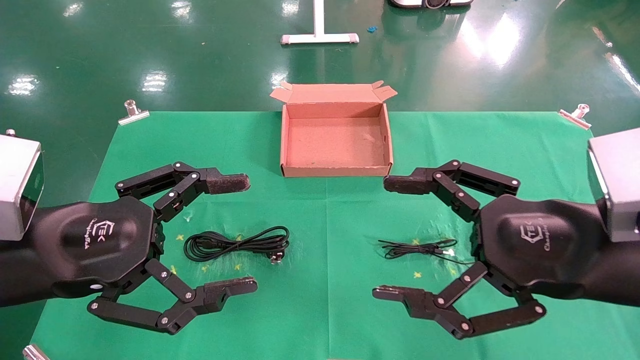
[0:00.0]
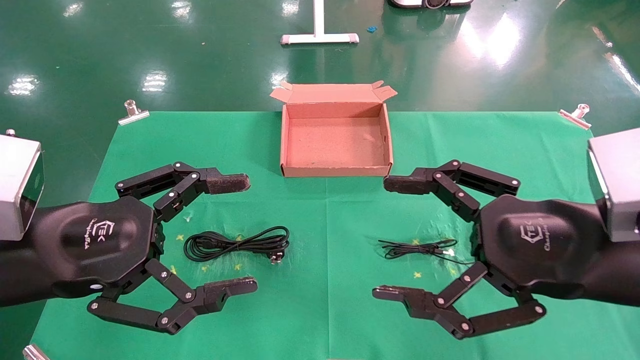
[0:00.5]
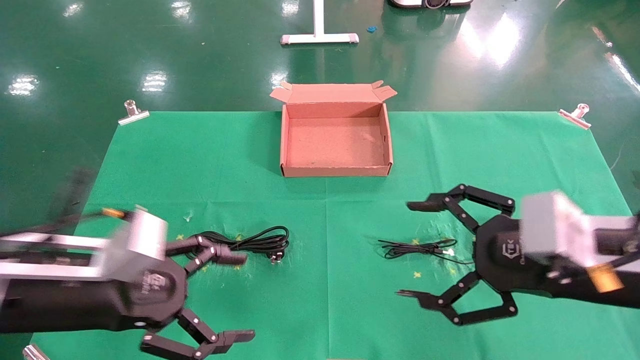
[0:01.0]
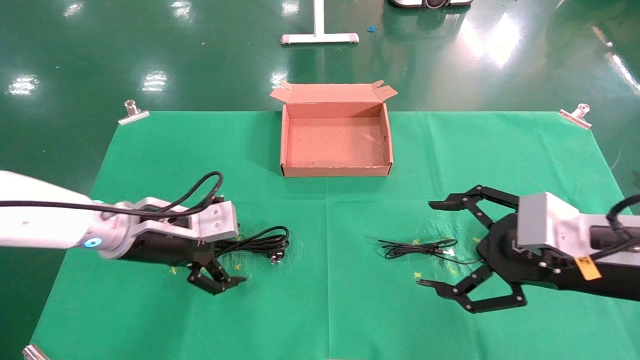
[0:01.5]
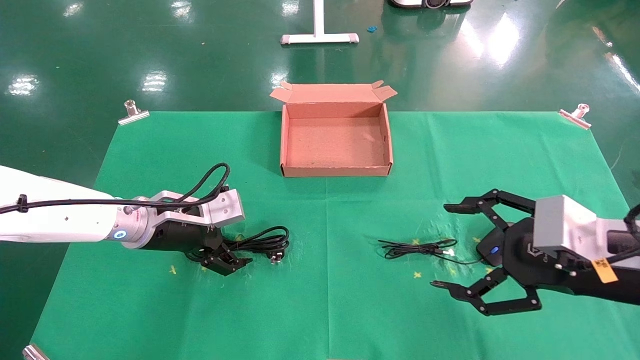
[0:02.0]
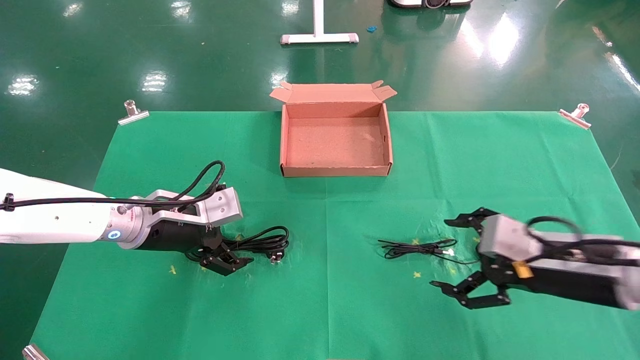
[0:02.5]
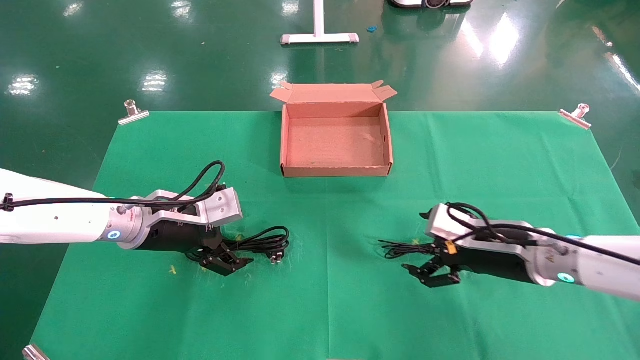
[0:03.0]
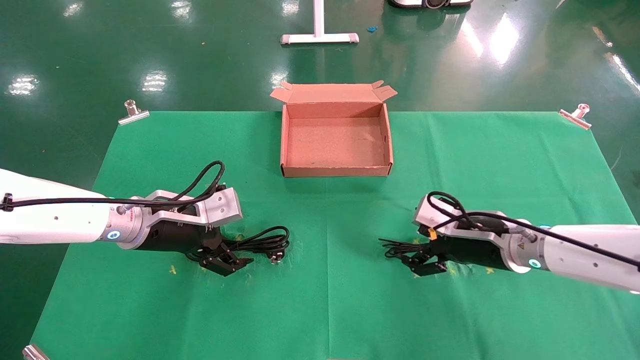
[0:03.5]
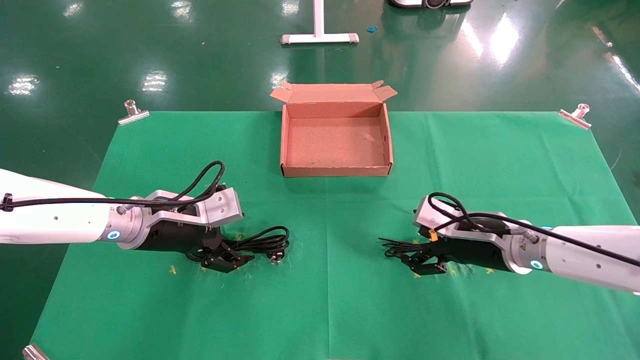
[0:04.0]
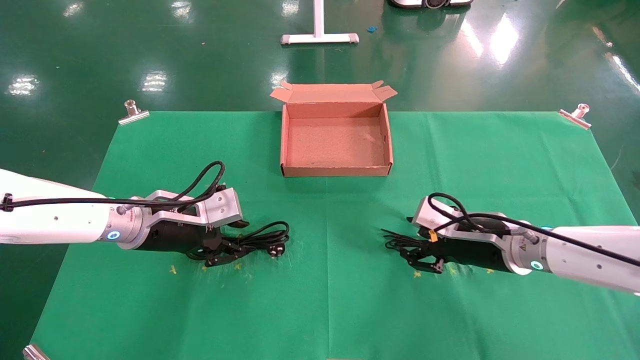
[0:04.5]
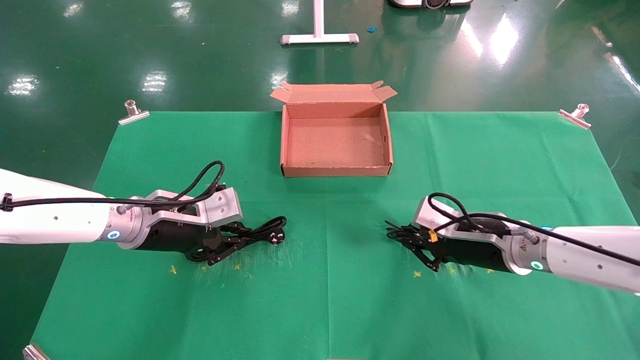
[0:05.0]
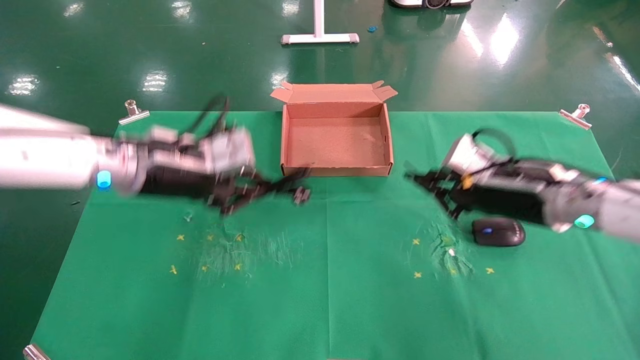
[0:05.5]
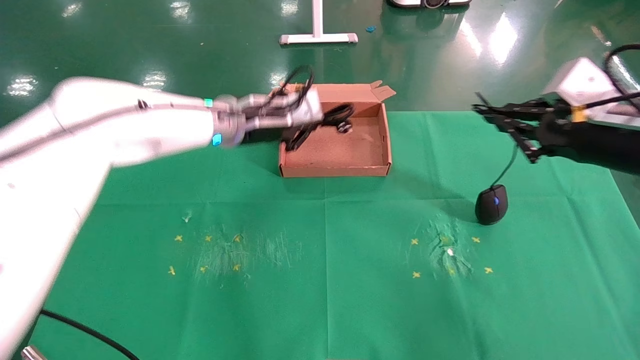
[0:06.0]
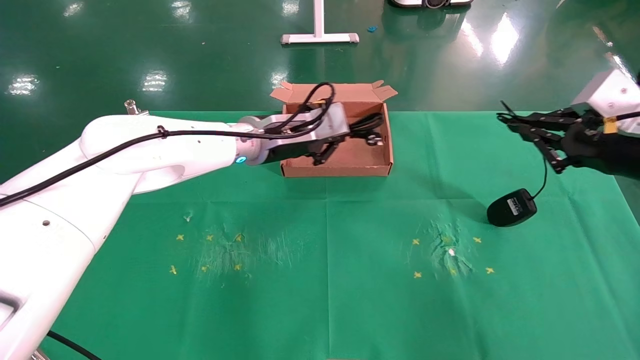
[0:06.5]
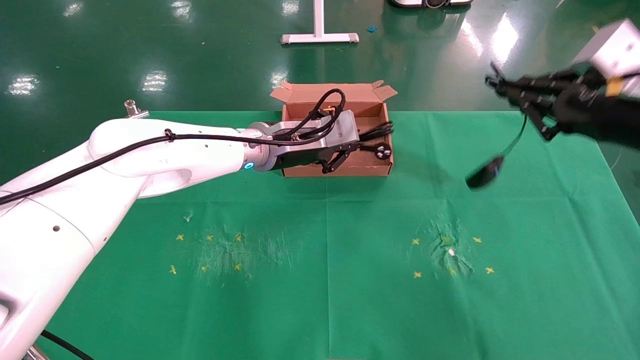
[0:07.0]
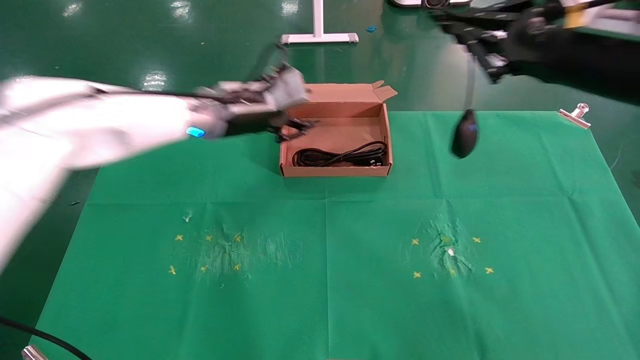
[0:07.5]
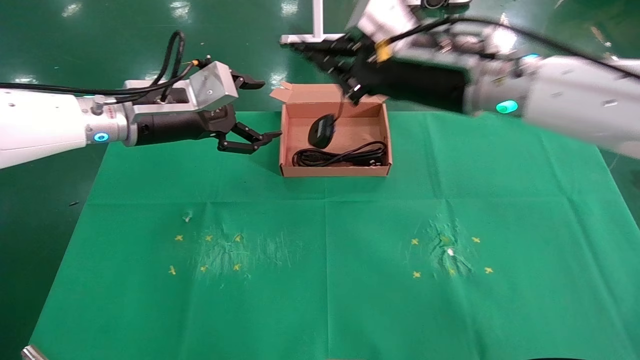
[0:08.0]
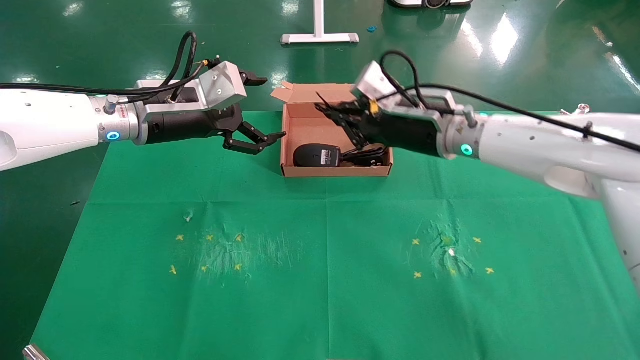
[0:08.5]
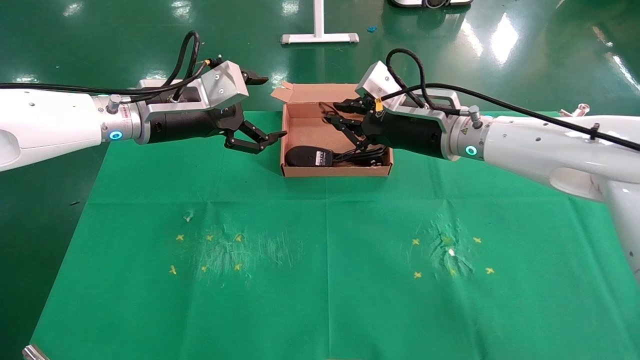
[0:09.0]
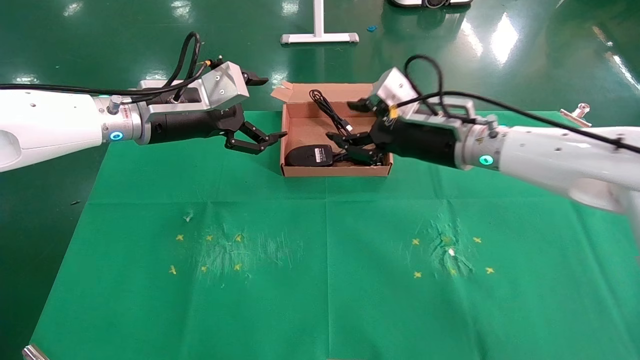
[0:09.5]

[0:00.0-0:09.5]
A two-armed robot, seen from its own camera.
Task of the whole recording: grasp data cable left put into box grasp mouse right put into box.
Step, 0:01.0 to 0:05.0: Simultaneously pick up the mouse and power cord from the accessory packaging area.
Step, 0:05.5 to 0:09.0: Place the mouse and power cord into the box.
0:00.0 to 0:02.0: The right gripper heads to the right, covering roughly 5 cm, while the left gripper travels forward and downward by roughly 20 cm.
0:02.0 to 0:04.0: The right gripper heads forward and downward, covering some 15 cm.
0:04.0 to 0:05.5: Both grippers travel together upward, about 10 cm. The left gripper closes up; the right gripper closes its fingers.
0:05.5 to 0:07.5: The left gripper goes about 5 cm forward, and moves about 15 cm to the right and comes back, while the right gripper travels upward by about 15 cm.
0:07.5 to 0:09.5: The right gripper moves to the left, forward and downward, about 15 cm, and opens its fingers. Meanwhile the left gripper heads to the left, covering approximately 5 cm, and opens up.

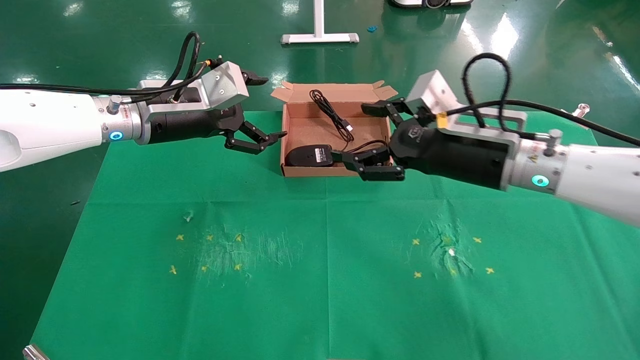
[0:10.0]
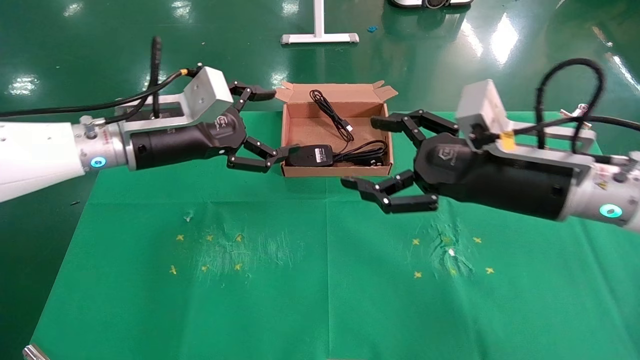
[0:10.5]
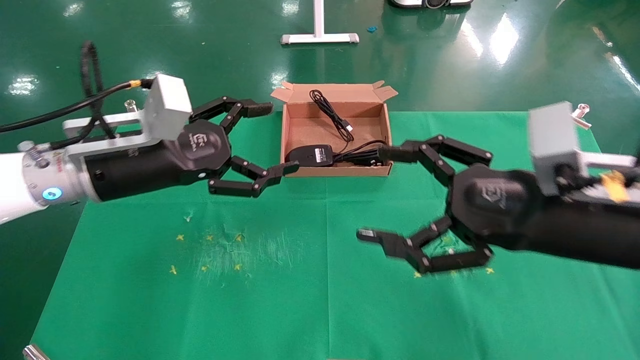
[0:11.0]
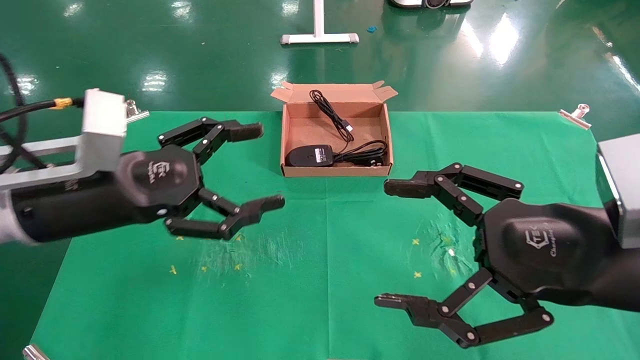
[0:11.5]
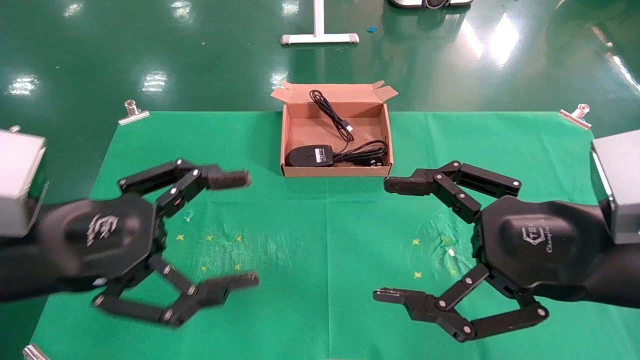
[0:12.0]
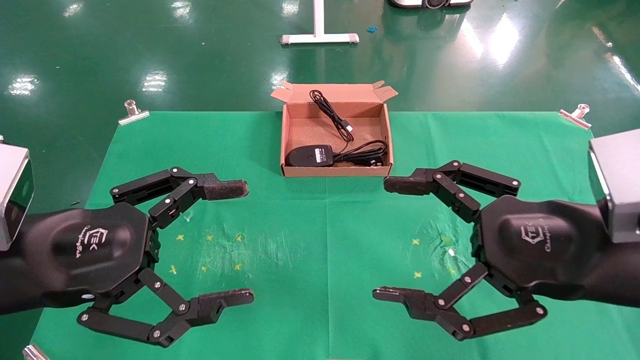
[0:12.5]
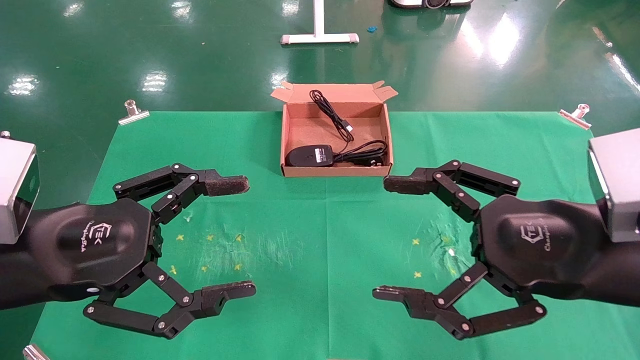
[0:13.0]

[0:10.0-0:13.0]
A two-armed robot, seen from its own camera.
Task of the whole recording: grasp data cable left put into box grasp mouse right put into box.
0:10.0 to 0:11.5: Both grippers travel together backward, approximately 15 cm.
0:11.5 to 0:13.0: The left gripper goes approximately 5 cm backward.
